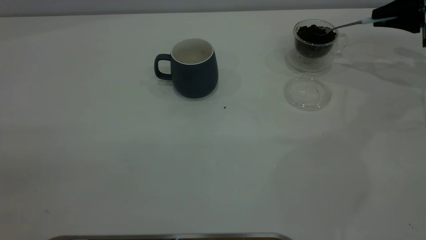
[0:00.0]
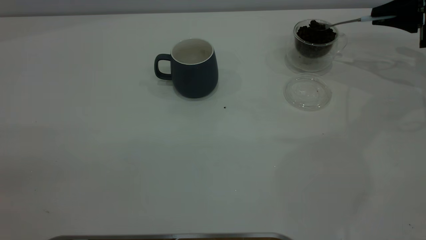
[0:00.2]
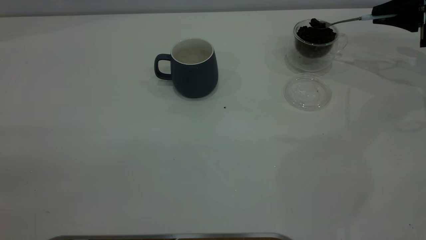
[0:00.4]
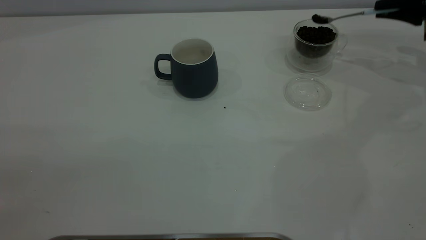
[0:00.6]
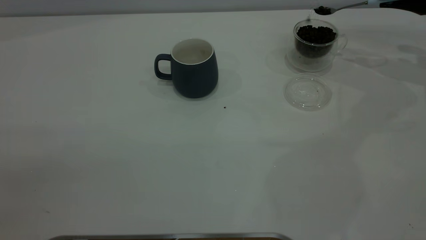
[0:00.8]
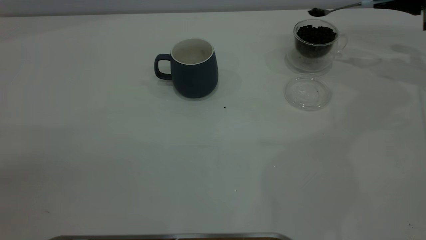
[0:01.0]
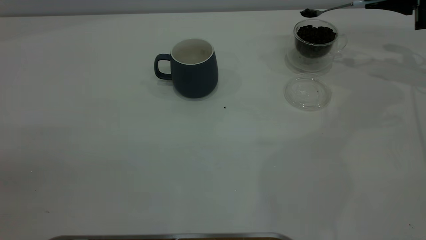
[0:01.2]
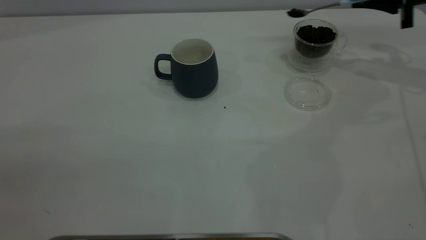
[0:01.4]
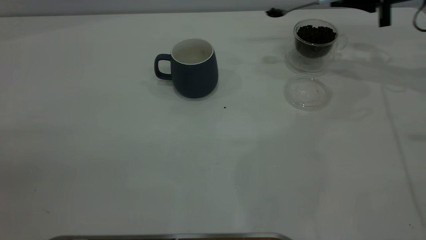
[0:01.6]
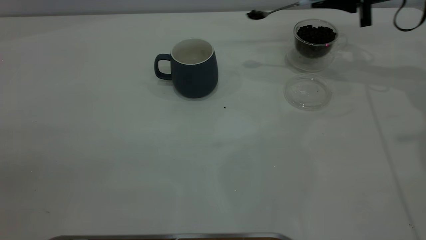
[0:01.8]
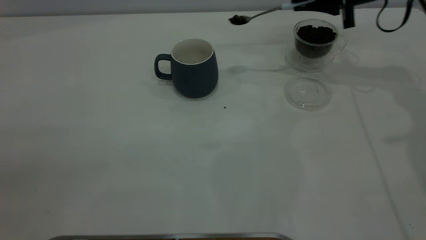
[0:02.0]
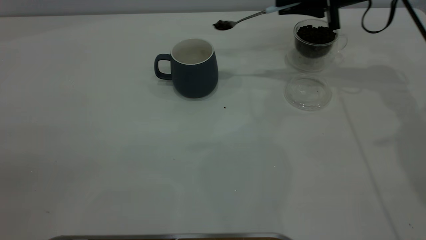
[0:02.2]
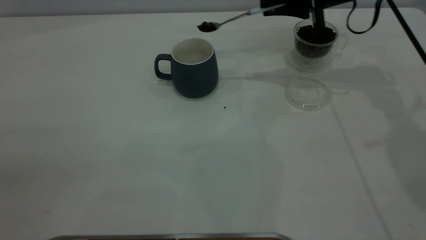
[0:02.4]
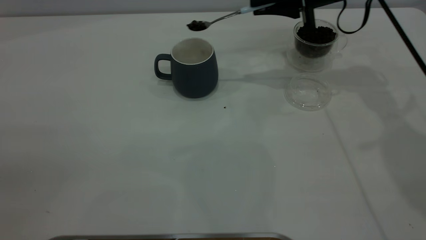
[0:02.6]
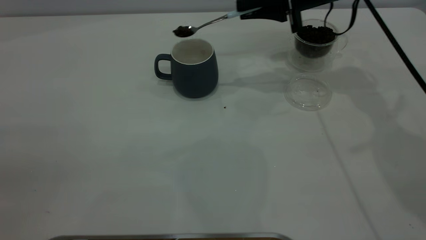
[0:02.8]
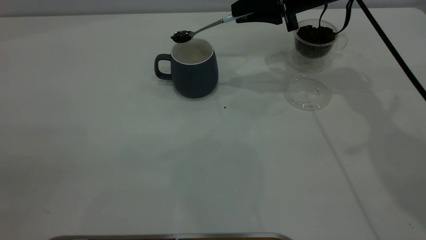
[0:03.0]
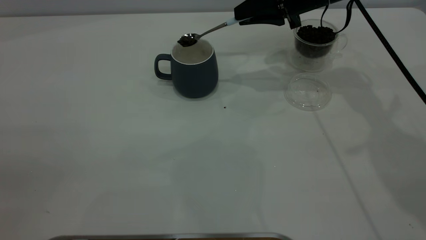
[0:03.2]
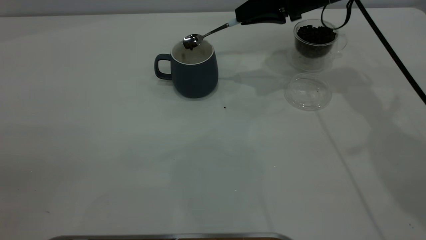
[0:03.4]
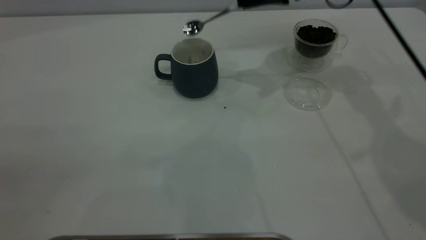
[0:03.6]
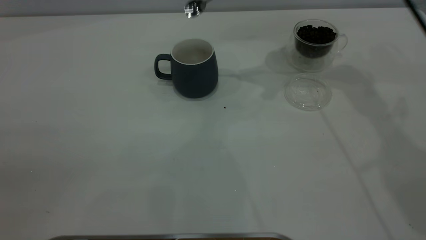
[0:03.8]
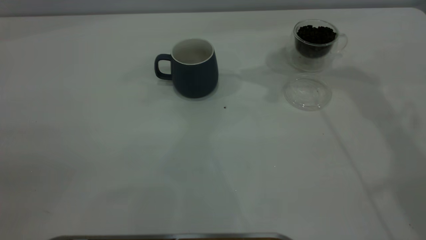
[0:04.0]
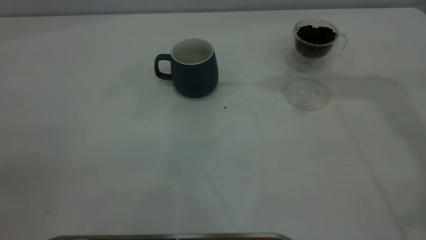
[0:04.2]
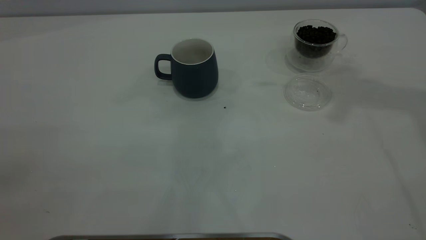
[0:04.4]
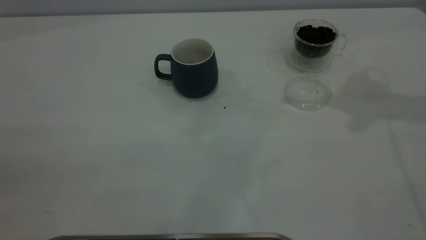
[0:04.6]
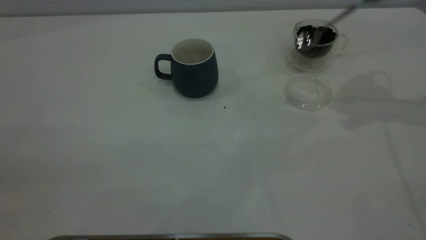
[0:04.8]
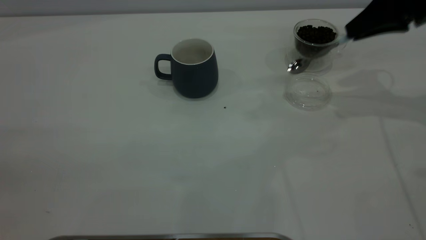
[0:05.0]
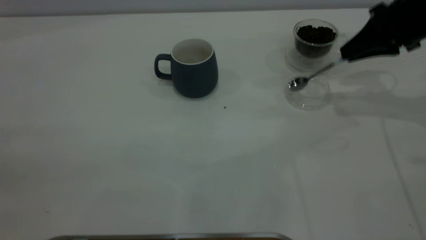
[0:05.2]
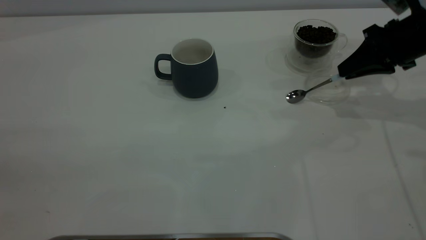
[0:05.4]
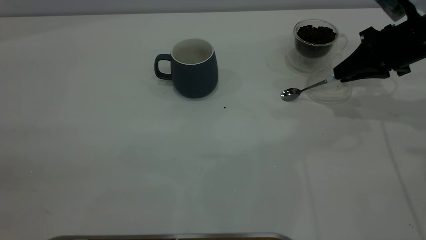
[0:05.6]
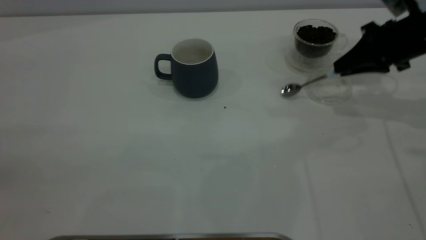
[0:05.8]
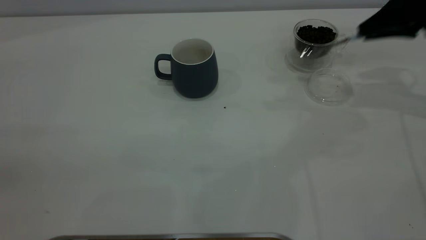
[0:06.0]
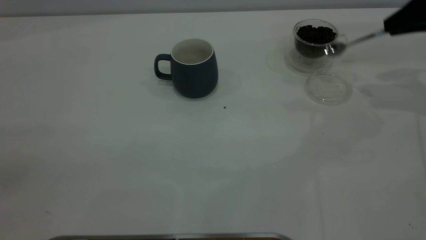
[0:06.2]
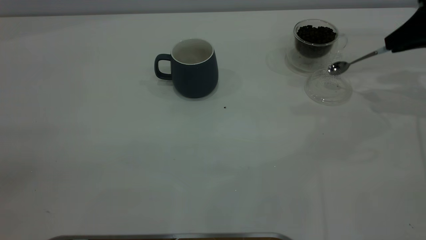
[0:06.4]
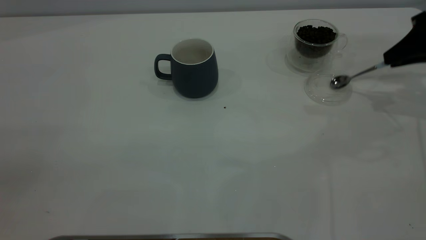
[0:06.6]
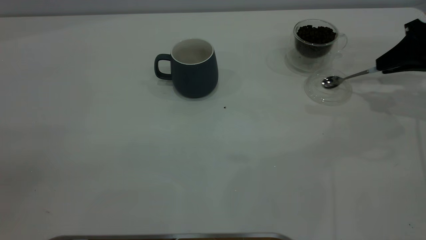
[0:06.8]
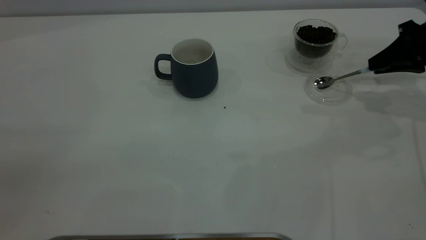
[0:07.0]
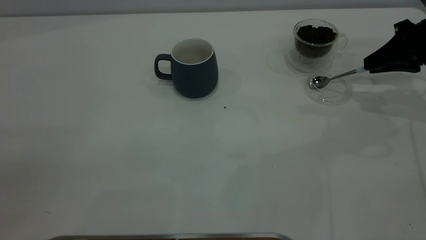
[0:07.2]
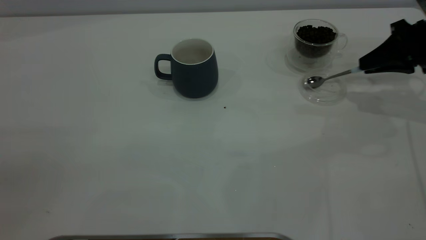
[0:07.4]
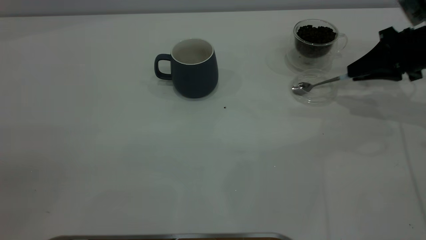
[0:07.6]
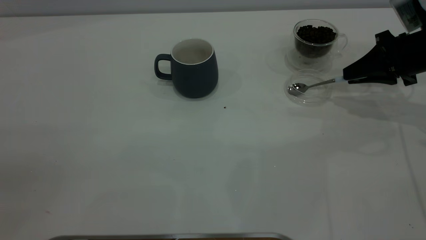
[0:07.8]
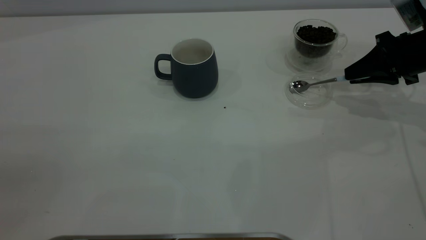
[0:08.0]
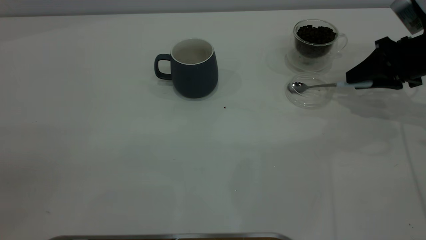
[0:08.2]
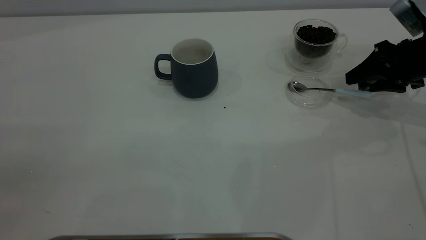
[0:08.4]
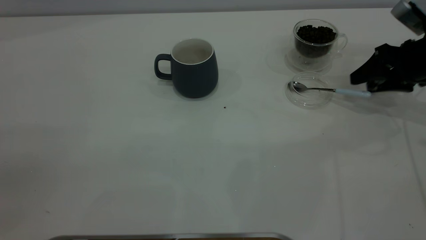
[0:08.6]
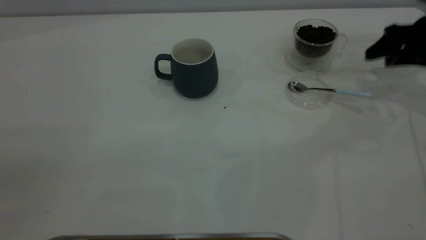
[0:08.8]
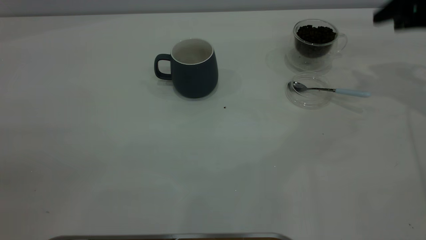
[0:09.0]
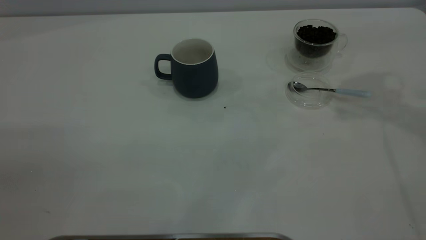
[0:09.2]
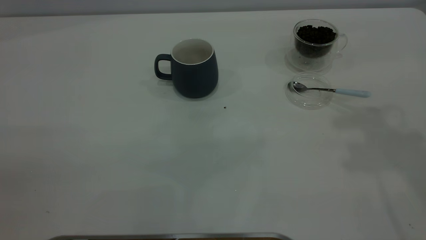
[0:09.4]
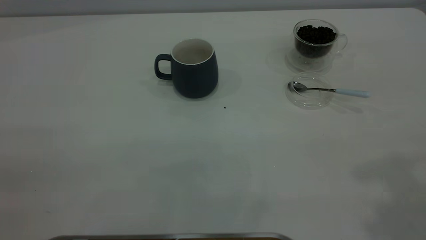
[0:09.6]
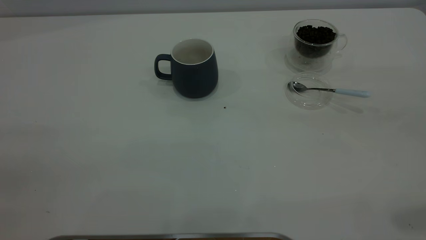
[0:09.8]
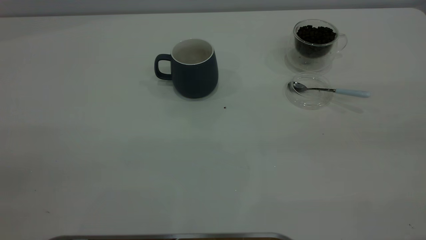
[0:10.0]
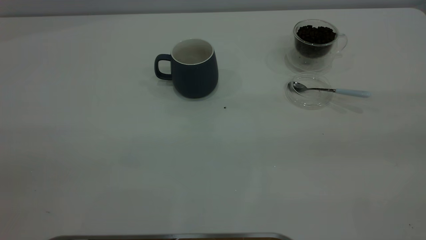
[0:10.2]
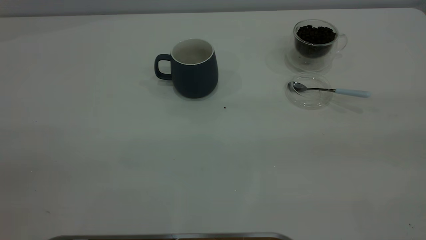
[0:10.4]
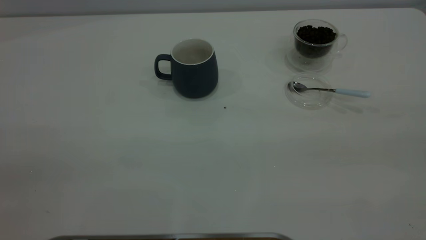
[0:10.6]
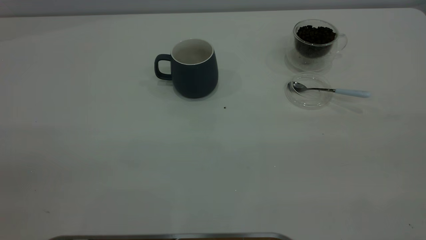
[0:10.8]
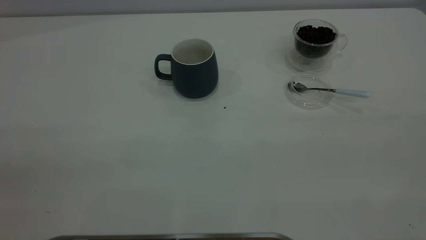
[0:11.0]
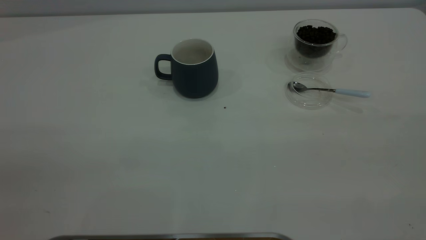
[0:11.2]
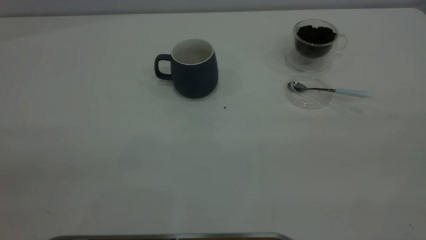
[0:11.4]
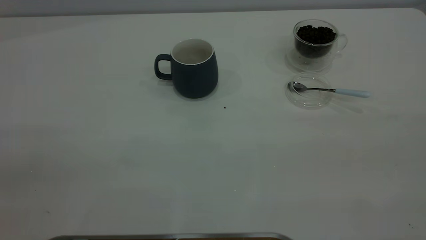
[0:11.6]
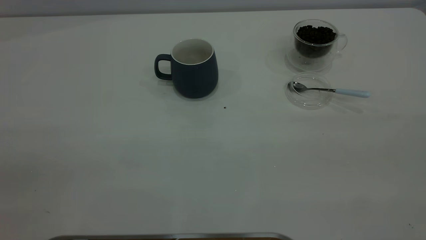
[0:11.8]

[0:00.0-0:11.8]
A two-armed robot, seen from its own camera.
Task of the whole recording: the left gripper place the grey cup in the center of the table, the right gripper take the blue spoon from the cup lid and scoop out the coffee beans from the coffee cup and put them into the grey cup, the right gripper put the spoon back into the cup lid.
Step, 0:00.0 to 0:03.6: Scoop a spoonful of beans into the cup.
Step, 0:03.8 to 0:08.6: Place the spoon back in its original place.
0:00.0 to 0:01.4: The right gripper shifts approximately 5 cm to the left.
0:01.4 to 0:03.0: The right gripper moves to the left, approximately 20 cm.
0:03.0 to 0:04.4: The right gripper heads upward and to the right, covering roughly 25 cm.
0:04.4 to 0:06.0: The right gripper goes some 25 cm downward.
0:06.0 to 0:07.4: The right gripper travels downward by roughly 5 cm.
0:07.4 to 0:08.8: The right gripper opens up.
0:08.8 to 0:10.4: The right gripper goes approximately 40 cm backward and upward.
